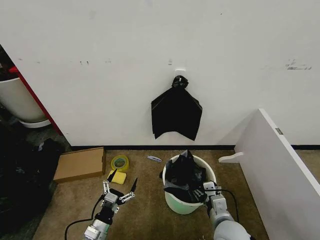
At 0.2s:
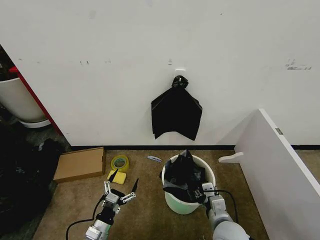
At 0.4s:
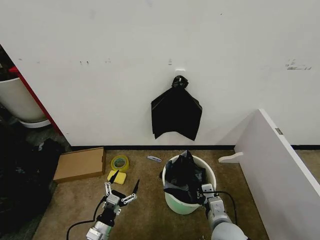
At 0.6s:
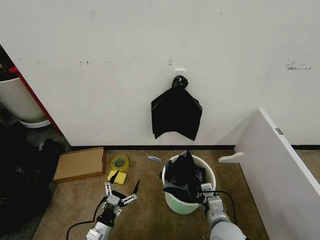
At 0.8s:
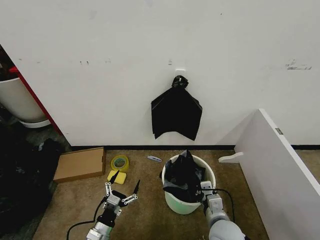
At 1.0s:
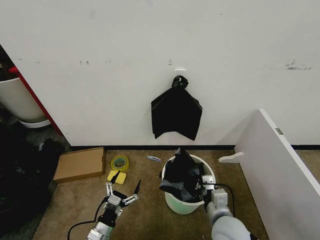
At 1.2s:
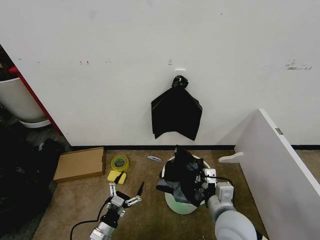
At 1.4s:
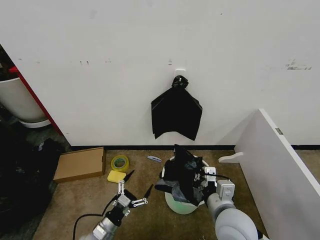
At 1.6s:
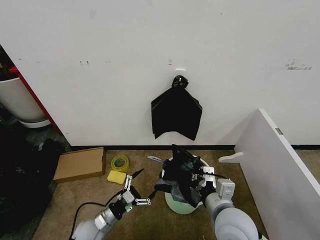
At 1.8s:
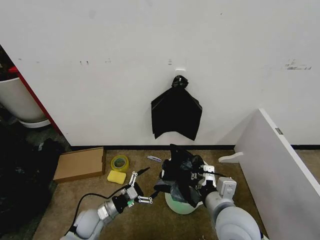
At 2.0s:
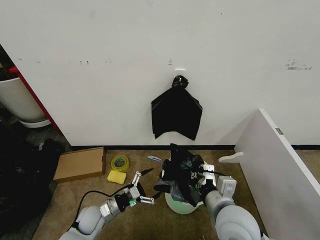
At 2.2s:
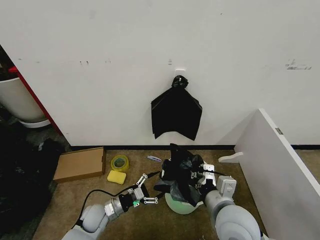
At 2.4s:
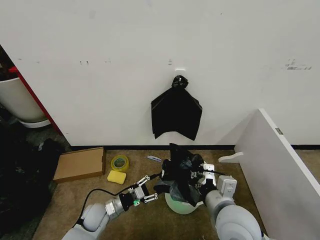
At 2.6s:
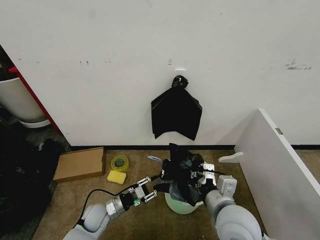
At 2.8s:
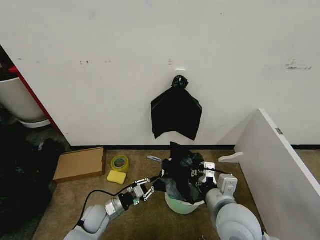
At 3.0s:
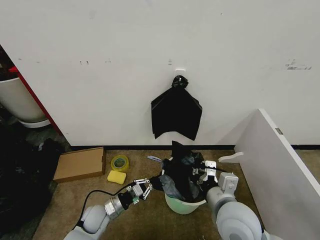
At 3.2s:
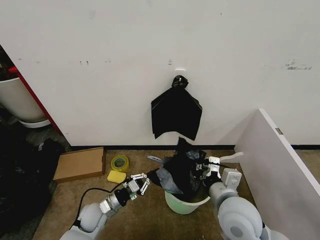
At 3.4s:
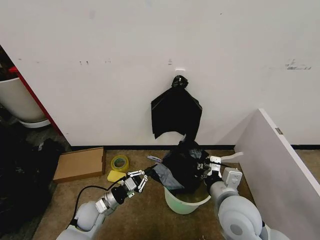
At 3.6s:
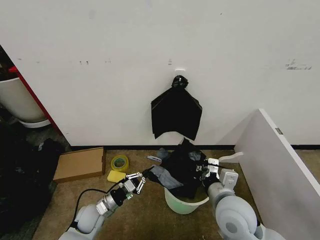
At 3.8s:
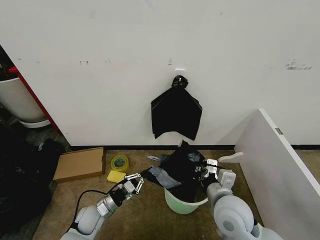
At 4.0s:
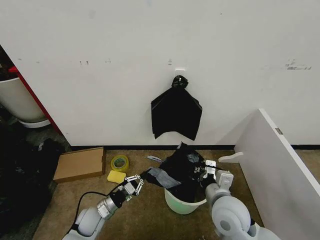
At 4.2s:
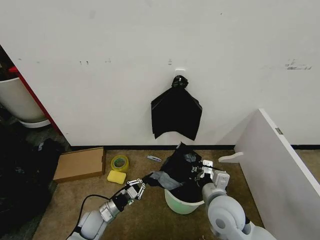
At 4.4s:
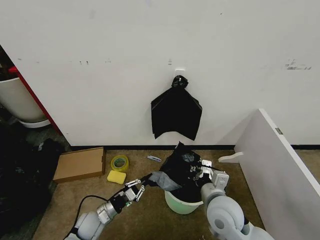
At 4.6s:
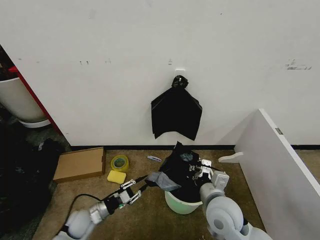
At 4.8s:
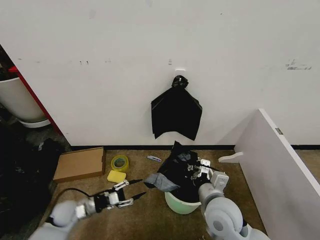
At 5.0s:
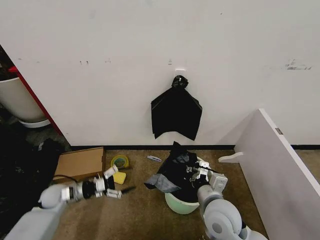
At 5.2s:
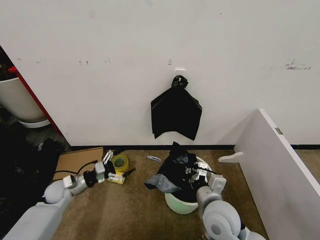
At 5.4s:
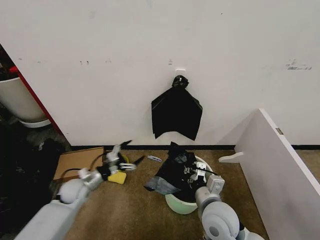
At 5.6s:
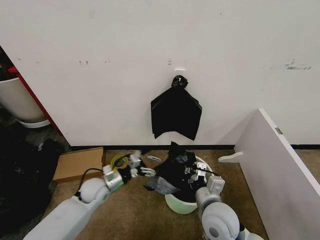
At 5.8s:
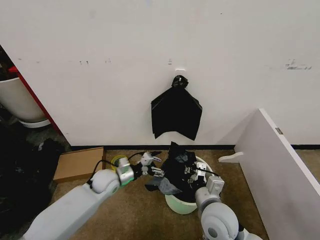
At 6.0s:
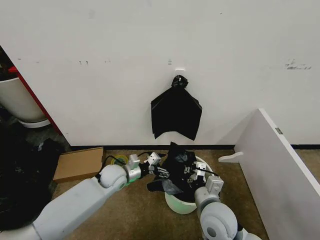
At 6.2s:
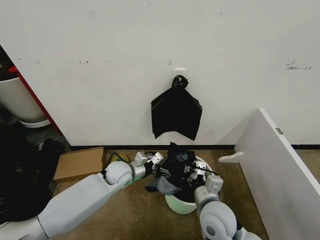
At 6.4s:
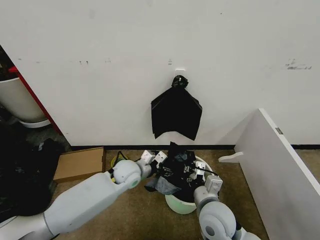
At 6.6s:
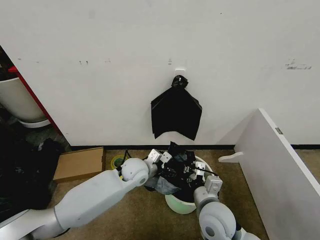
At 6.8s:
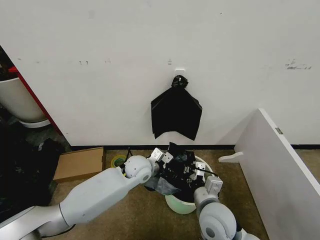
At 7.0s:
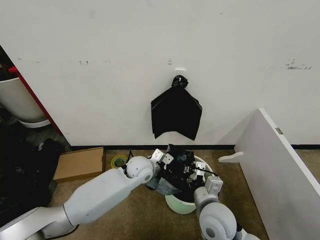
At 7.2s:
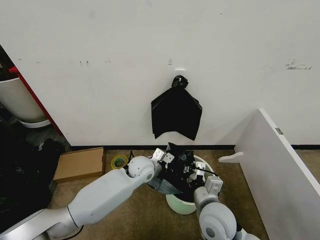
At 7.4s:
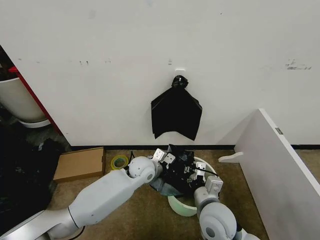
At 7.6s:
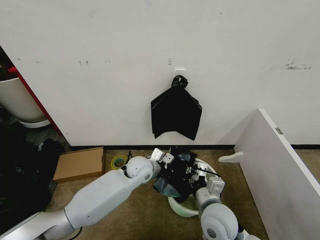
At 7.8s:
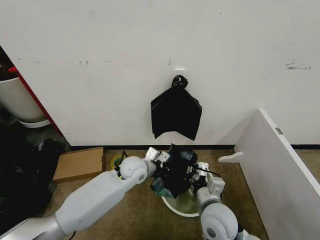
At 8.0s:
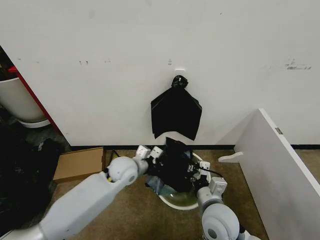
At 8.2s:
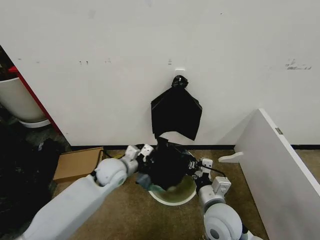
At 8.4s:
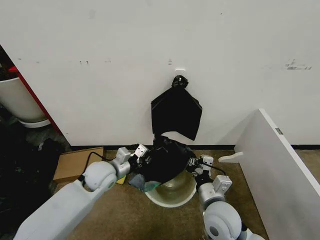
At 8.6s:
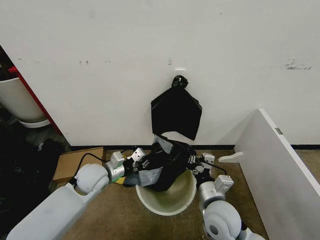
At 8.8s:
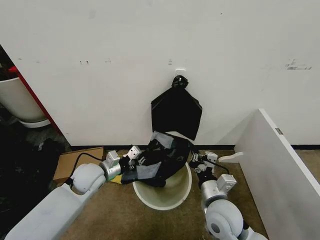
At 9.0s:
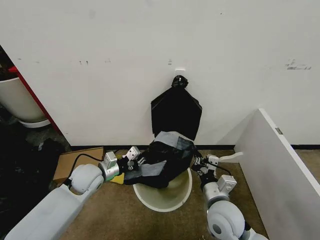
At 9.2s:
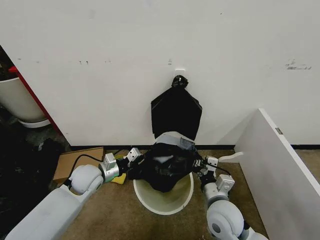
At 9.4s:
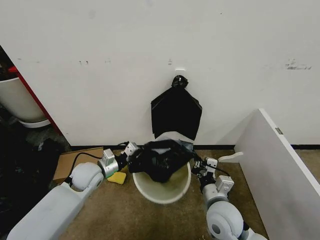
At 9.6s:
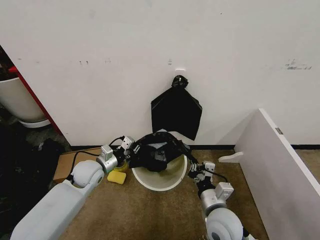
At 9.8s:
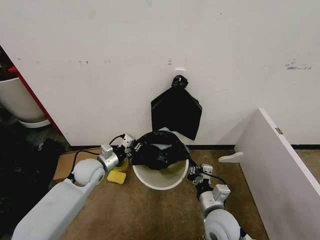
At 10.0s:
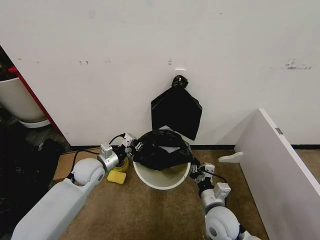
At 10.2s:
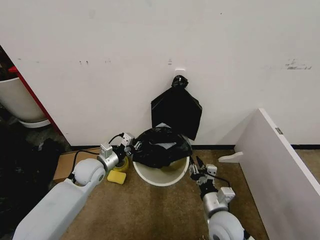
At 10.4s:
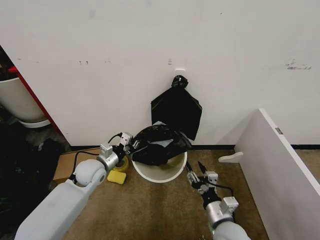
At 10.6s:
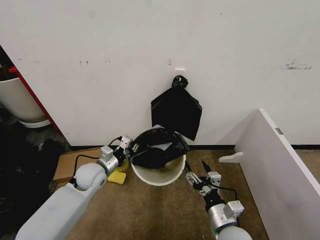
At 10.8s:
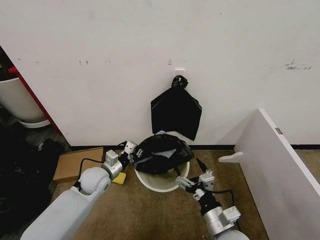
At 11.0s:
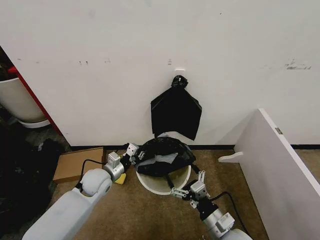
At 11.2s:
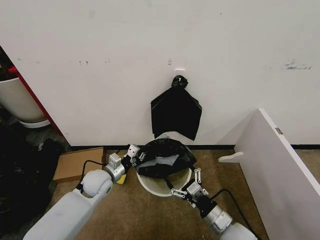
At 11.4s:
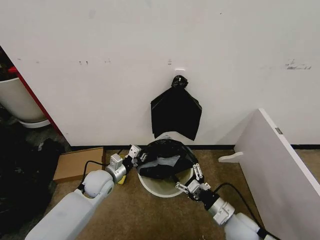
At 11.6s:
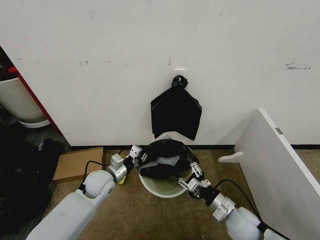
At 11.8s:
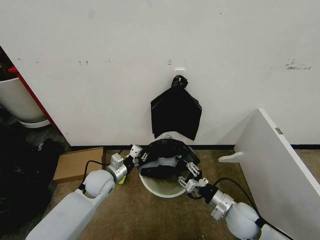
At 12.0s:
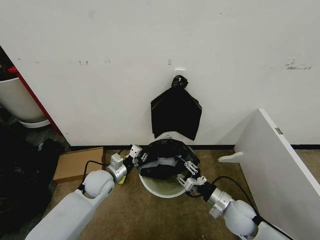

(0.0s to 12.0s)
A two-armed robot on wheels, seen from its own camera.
Task of the whole recording: Place the garbage bag over the trash bin.
0.0s - 1.6s: The left gripper heads forward, covering roughly 5 cm, while the right gripper travels upward by some 10 cm, and closes up.
1.6s - 3.0s: The left gripper heads forward, covering some 5 cm, and closes up.
3.0s - 4.4s: The right gripper shifts roughly 5 cm downward.
4.4s - 6.0s: The left gripper shifts some 20 cm forward, upward and to the right, and opens its fingers.
6.0s - 7.6s: The left gripper heads to the right, covering some 10 cm, and closes.
7.6s - 9.0s: The left gripper shifts some 15 cm to the left.
9.0s - 10.4s: The right gripper moves downward, about 5 cm, and opens.
10.4s - 12.0s: The left gripper ends up roughly 5 cm from where it was; the right gripper heads forward and to the right, covering roughly 10 cm, and opens, then closes again.

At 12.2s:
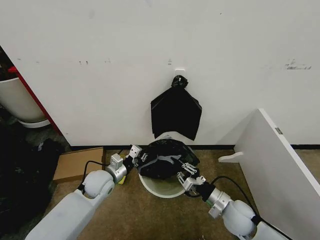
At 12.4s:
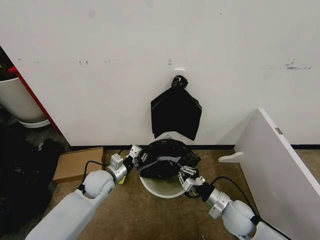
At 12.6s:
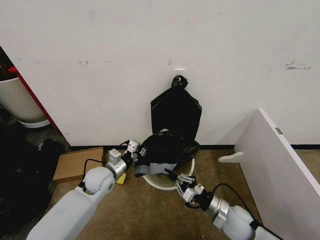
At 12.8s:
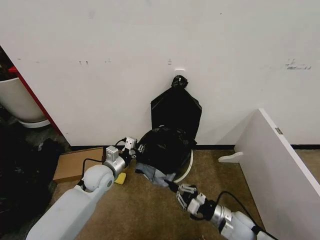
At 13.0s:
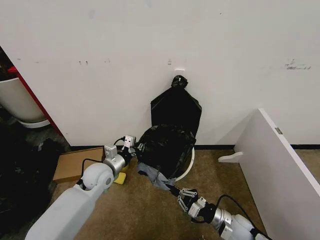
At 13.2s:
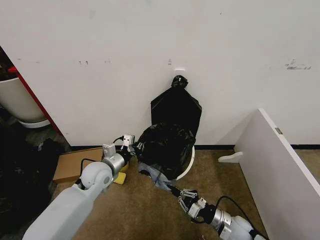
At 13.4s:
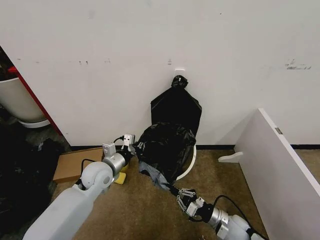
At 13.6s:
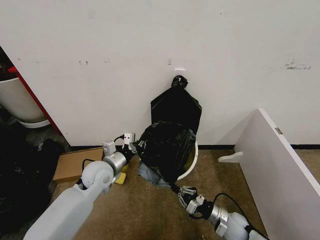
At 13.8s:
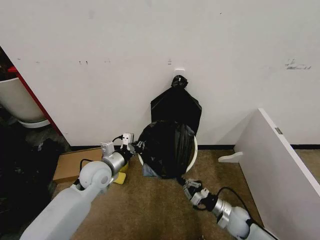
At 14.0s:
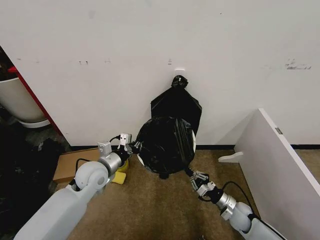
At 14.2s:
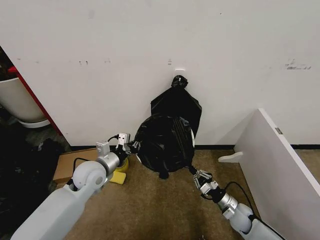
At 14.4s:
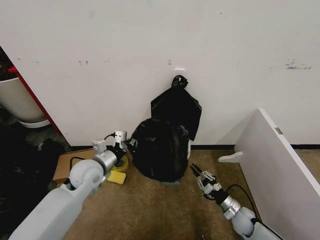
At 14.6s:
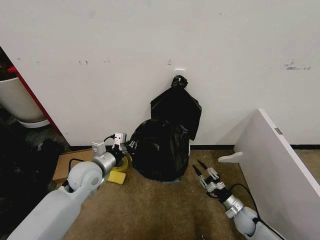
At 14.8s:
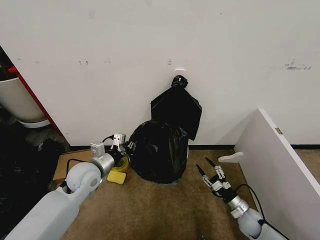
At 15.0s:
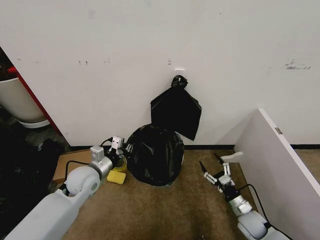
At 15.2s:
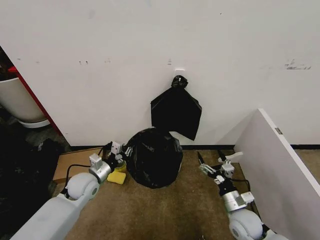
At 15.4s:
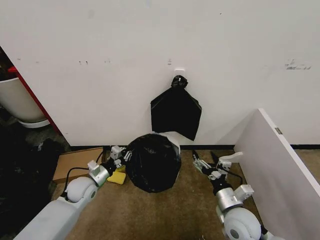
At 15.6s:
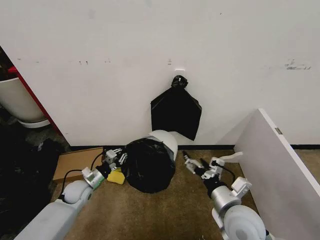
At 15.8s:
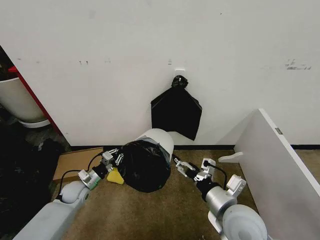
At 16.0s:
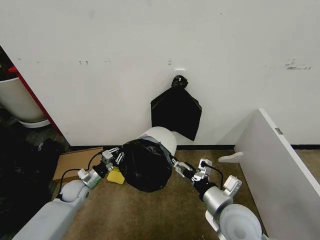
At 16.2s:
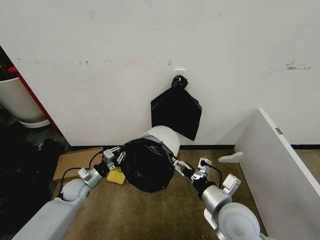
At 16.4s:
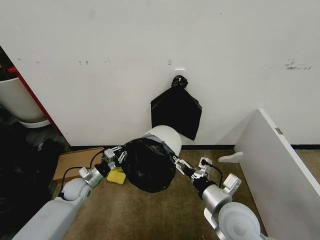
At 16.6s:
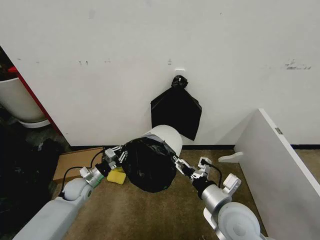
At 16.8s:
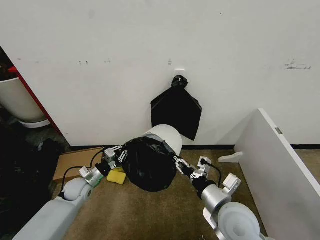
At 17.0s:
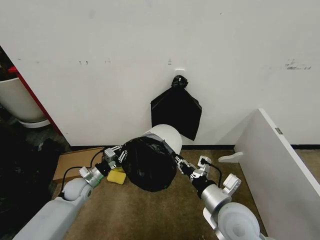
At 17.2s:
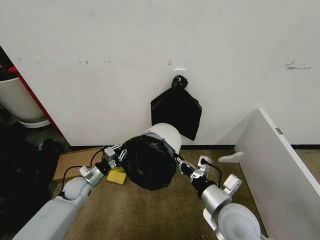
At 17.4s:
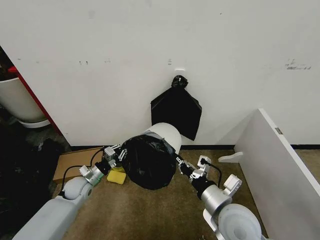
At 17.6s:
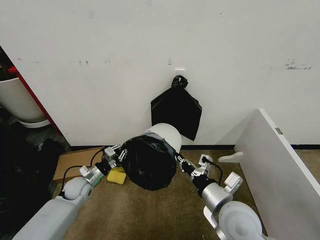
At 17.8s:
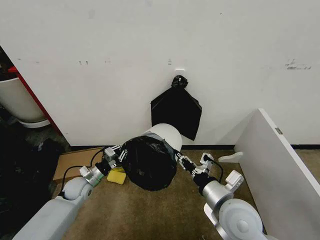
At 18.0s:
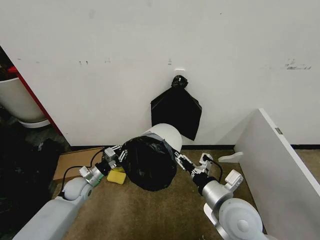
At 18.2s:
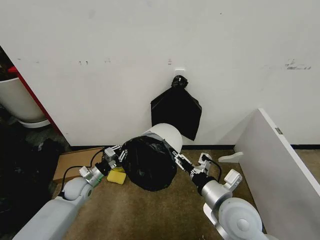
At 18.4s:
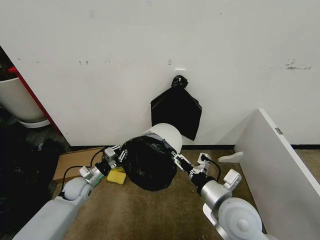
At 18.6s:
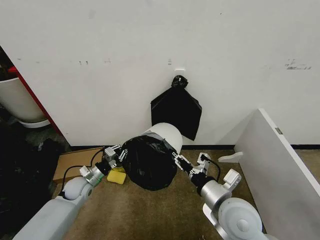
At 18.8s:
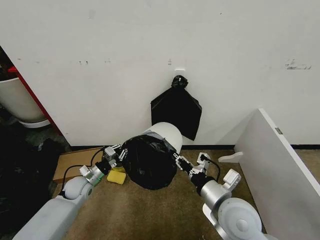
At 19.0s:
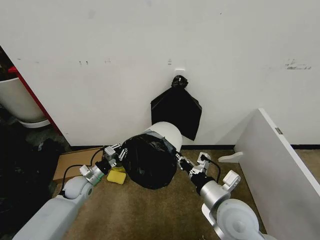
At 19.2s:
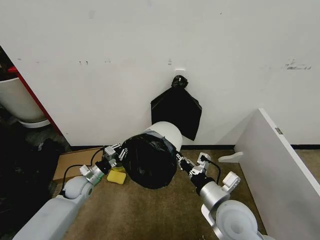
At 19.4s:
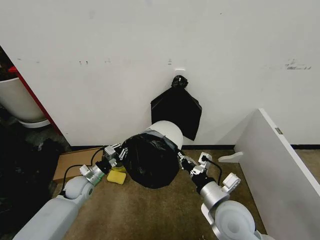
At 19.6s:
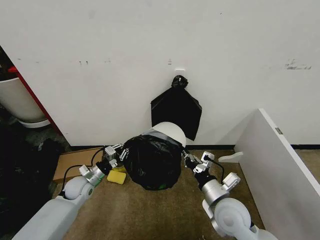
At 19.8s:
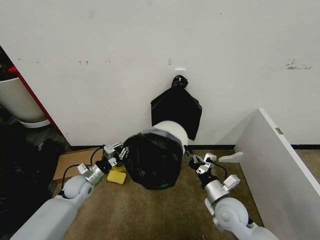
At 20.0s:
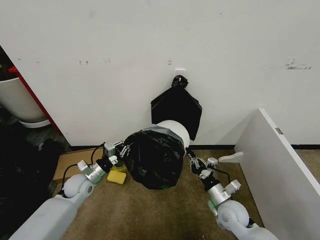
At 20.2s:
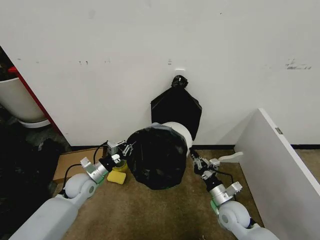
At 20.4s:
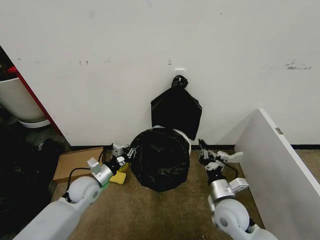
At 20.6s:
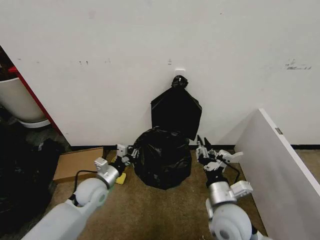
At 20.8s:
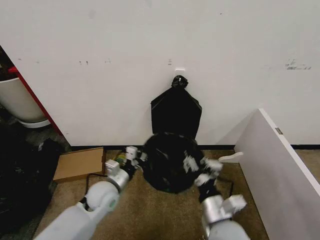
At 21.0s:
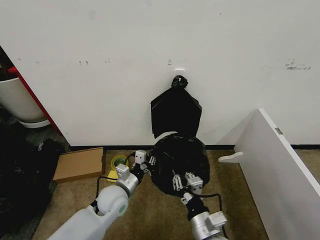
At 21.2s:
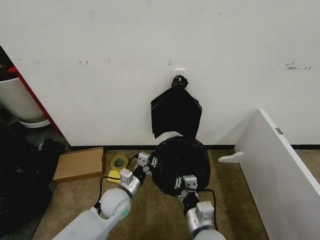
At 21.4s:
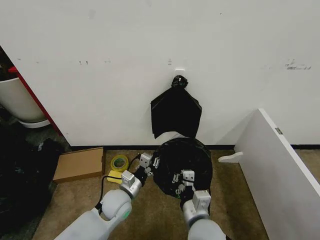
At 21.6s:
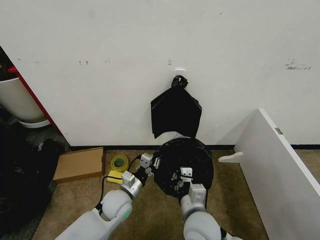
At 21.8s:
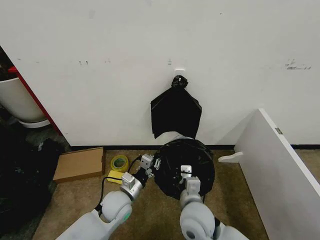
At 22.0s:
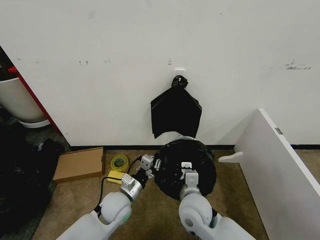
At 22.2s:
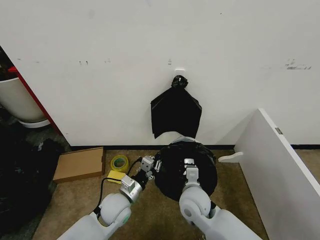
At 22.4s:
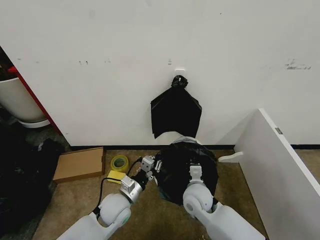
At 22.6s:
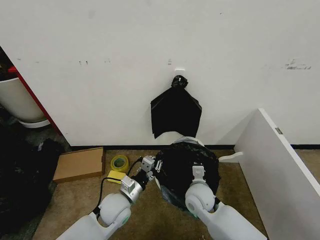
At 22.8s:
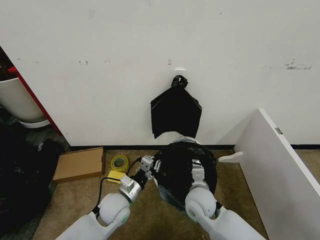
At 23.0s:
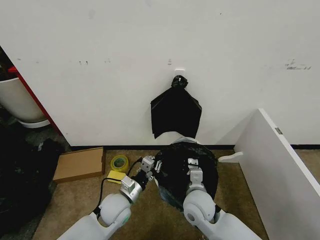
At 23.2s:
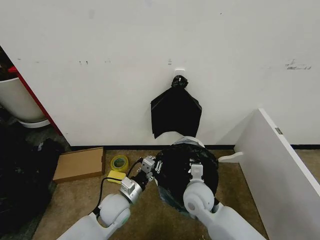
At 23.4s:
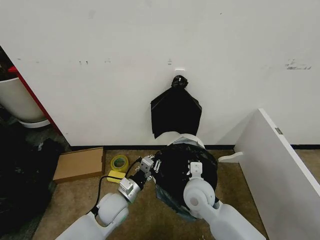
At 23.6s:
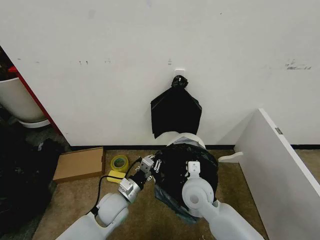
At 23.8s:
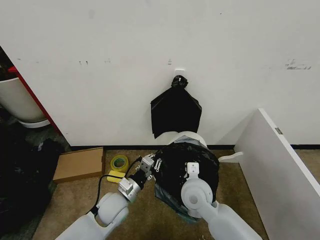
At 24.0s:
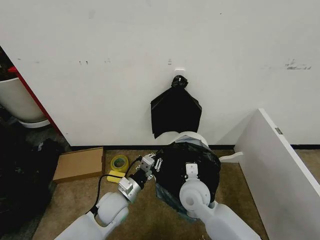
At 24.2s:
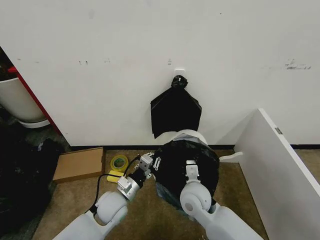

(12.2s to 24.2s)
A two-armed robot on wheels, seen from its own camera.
Task of the whole recording: Place the garbage bag over the trash bin.
12.2s - 13.8s: The left gripper is displaced upward by about 5 cm, while the right gripper travels downward by approximately 10 cm.
13.8s - 15.2s: The left gripper is displaced downward and to the left by some 10 cm; the right gripper moves upward, approximately 5 cm, and opens up.
15.2s - 16.6s: The right gripper is displaced upward and to the left by about 20 cm; the left gripper shifts some 10 cm downward and to the left.
16.6s - 18.2s: The right gripper closes, then opens again.
18.2s - 19.8s: The right gripper travels downward by some 10 cm, and closes.
19.8s - 21.2s: The left gripper travels to the right and backward by roughly 15 cm; the right gripper shifts some 15 cm backward and to the left, and opens, then closes again.
21.2s - 22.6s: The right gripper is displaced forward by some 15 cm.
